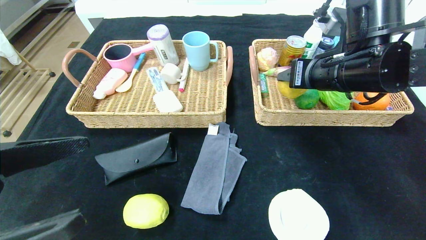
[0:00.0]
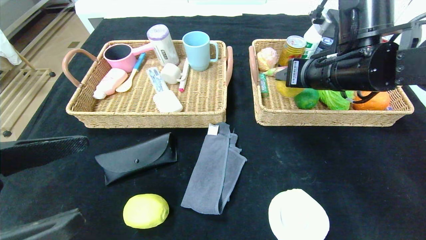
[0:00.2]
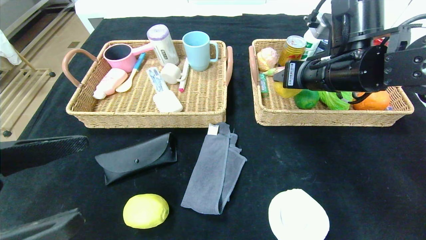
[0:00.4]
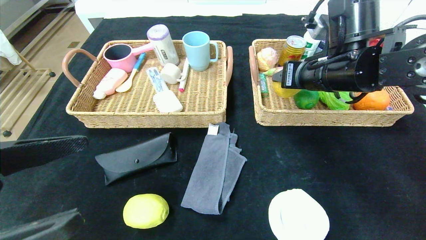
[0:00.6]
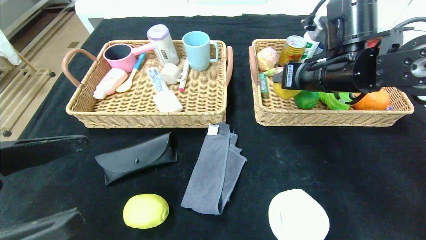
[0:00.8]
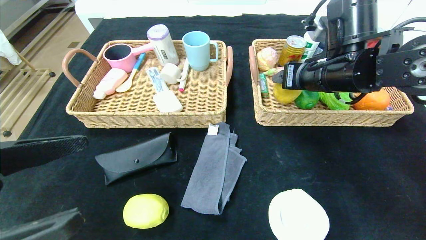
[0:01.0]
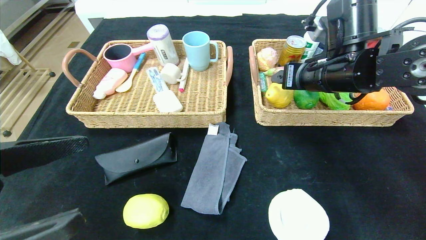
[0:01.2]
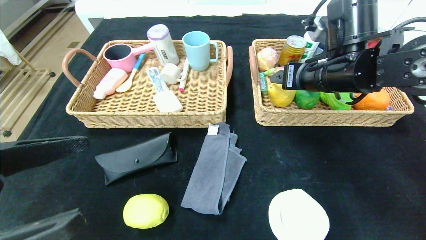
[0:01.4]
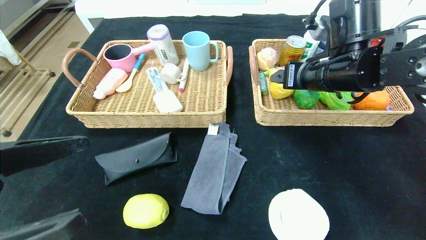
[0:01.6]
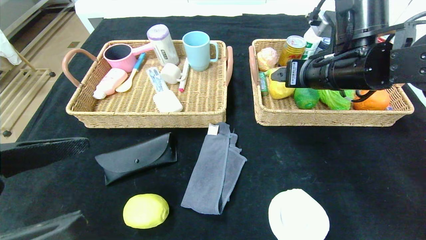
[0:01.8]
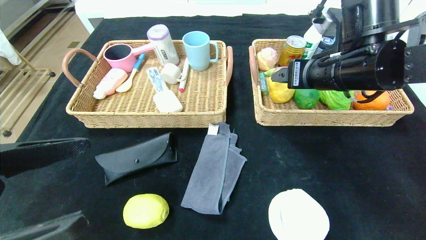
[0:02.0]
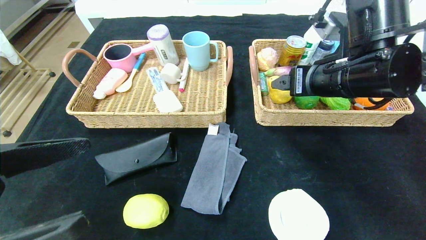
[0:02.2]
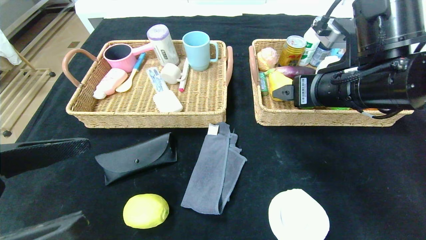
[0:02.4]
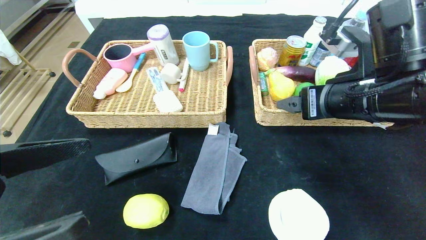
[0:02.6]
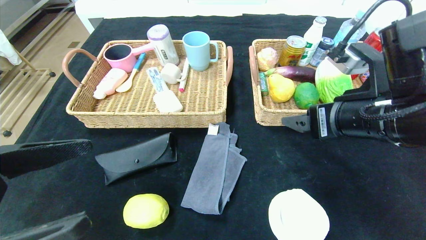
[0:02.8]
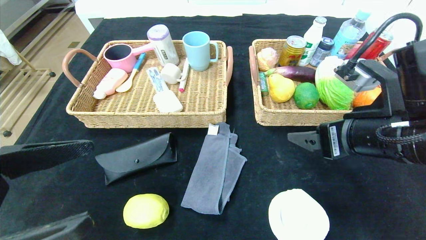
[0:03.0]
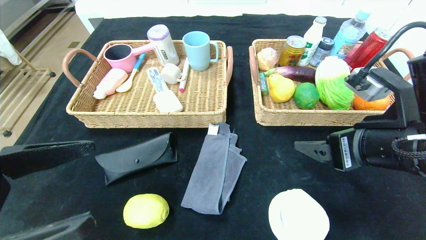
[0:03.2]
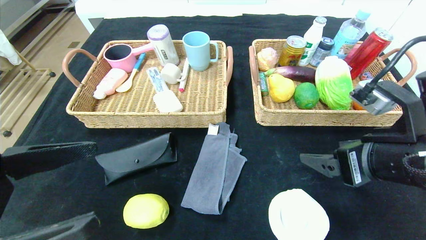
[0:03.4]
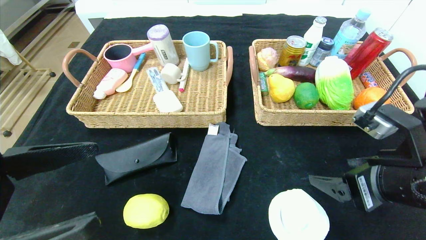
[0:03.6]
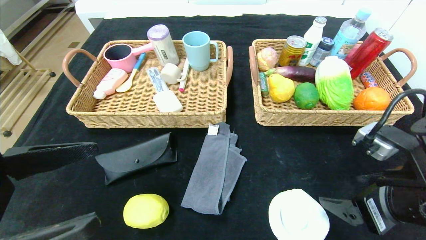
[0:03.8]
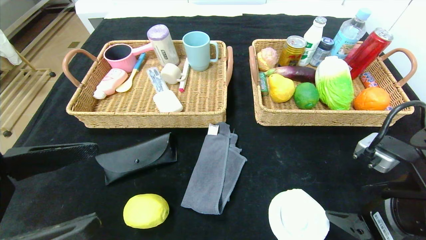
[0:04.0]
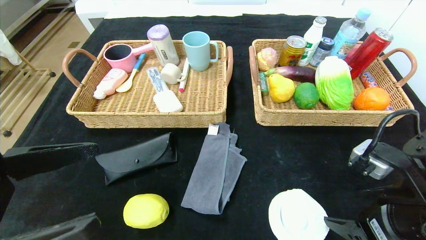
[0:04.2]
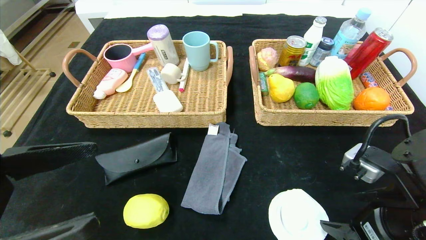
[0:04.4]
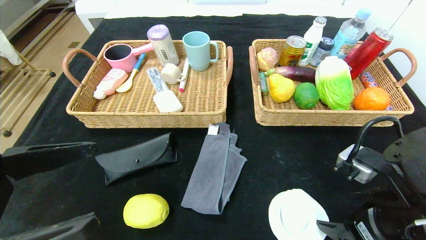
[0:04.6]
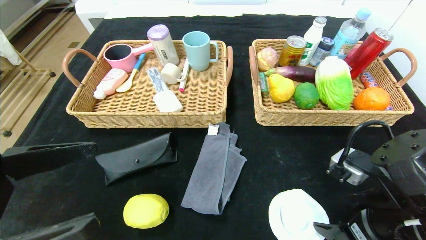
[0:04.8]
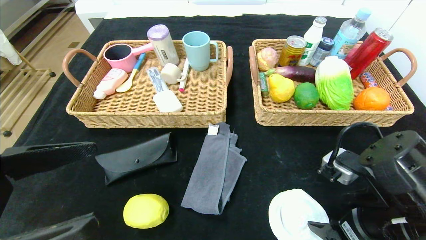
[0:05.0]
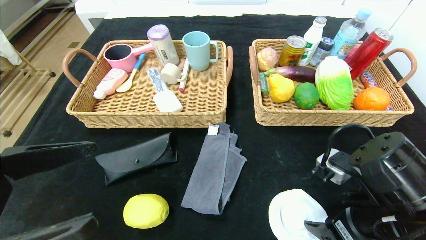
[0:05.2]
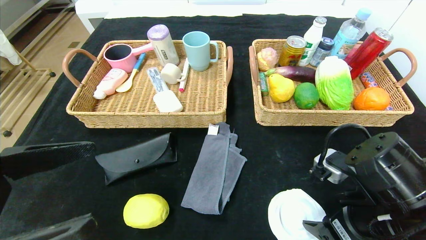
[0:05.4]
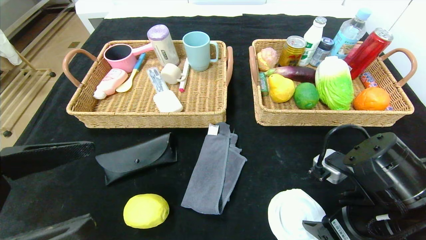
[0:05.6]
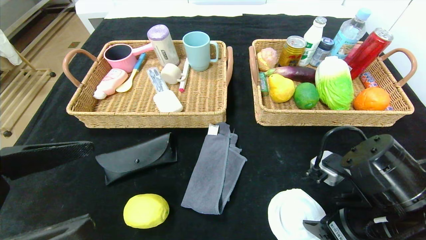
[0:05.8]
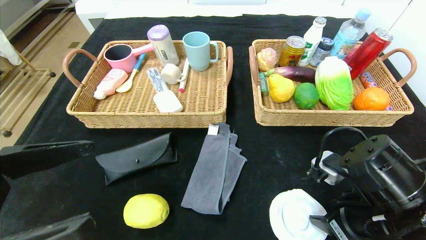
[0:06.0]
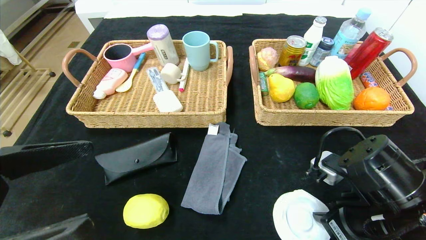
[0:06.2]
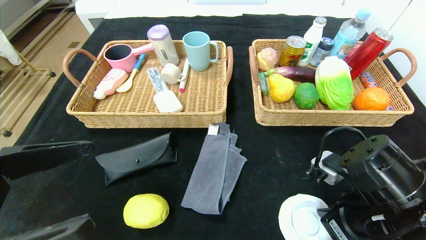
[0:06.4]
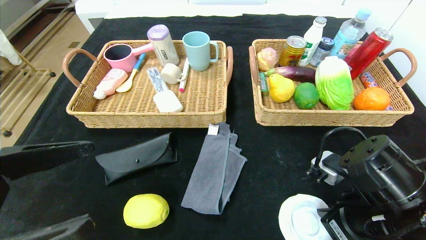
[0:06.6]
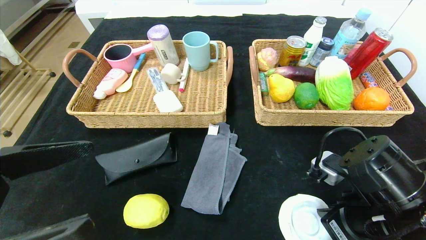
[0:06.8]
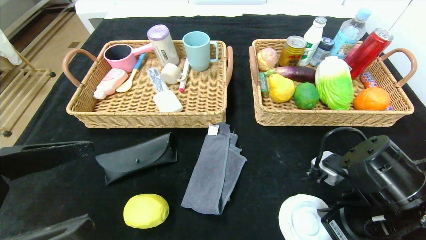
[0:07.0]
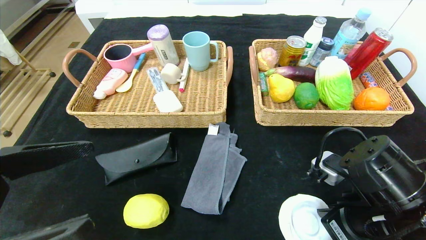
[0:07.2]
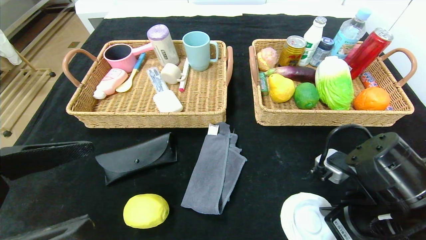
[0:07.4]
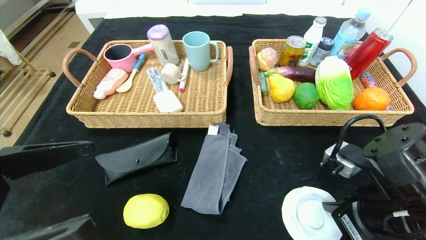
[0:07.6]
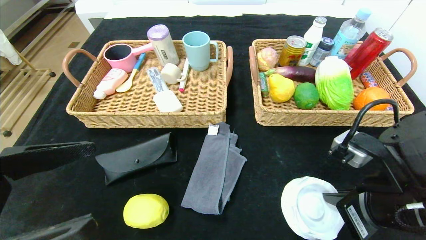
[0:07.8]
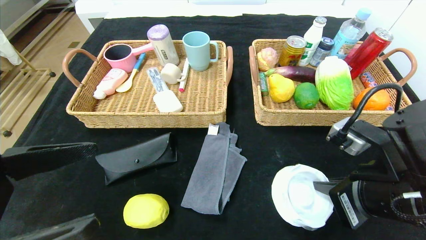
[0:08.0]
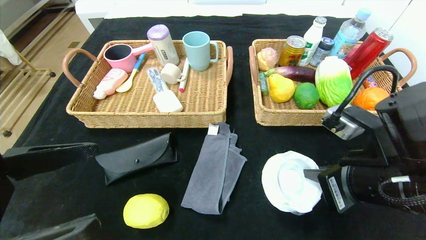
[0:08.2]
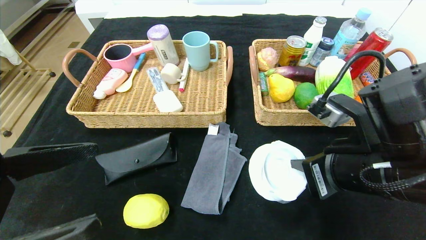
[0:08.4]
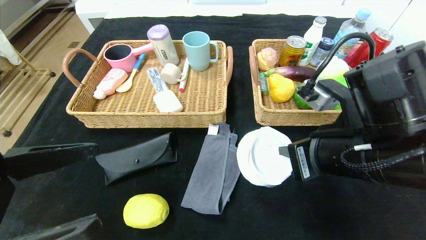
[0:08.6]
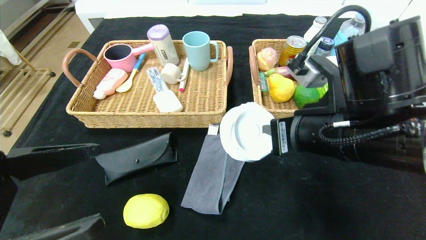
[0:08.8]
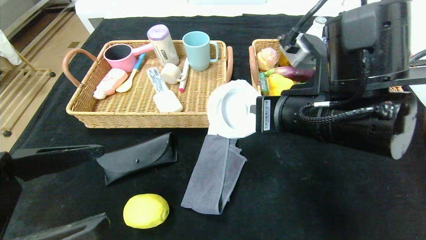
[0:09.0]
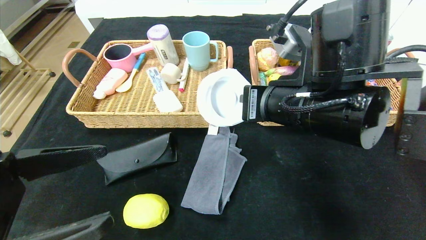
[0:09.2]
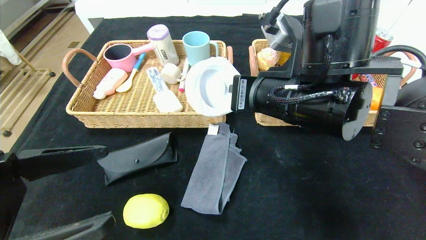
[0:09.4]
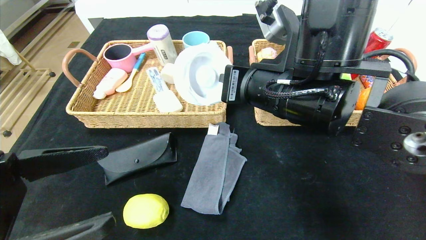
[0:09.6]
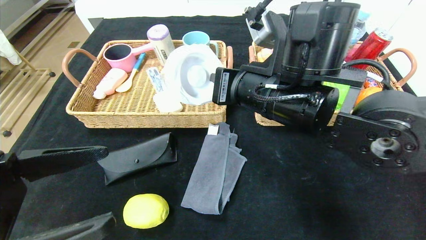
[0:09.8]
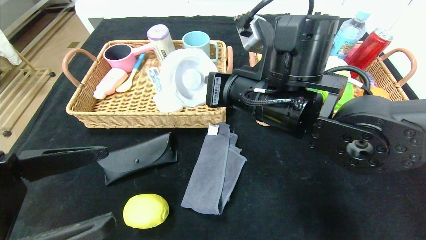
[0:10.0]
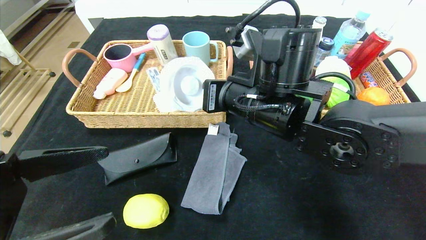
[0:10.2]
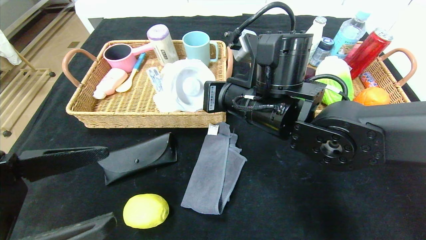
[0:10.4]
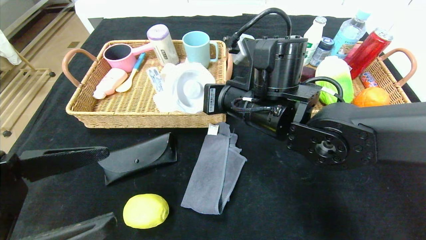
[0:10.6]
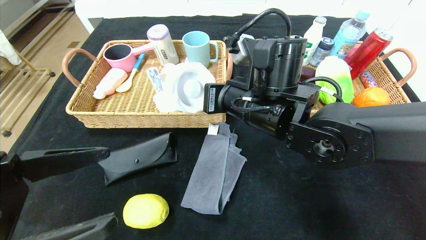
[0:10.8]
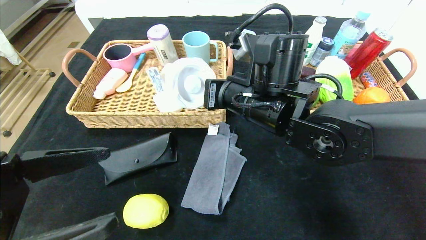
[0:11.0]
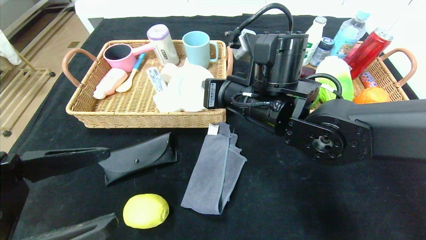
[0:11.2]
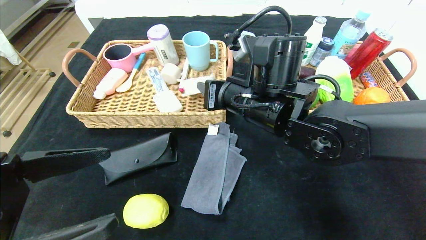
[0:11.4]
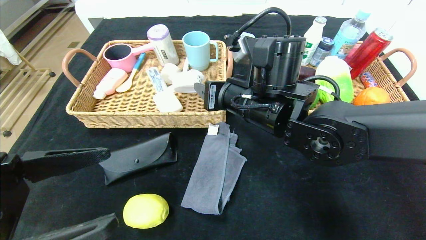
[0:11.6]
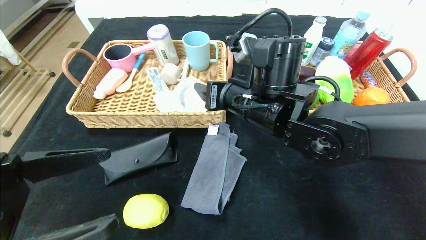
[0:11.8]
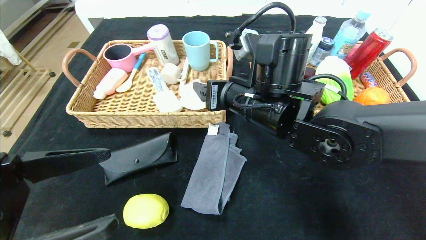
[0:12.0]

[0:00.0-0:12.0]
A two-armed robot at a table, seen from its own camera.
Step, 0:00.0 to 0:03.2: Pick up the pear and put it in the right basket.
0:00.0 to 0:01.6: The grippers stay close to where they were, moving slightly.
0:01.6 to 0:03.0: The right gripper shifts some 10 cm backward.
0:03.0 to 0:04.4: The right gripper is displaced downward and backward by approximately 10 cm.
0:04.4 to 0:06.0: The right gripper closes.
0:06.0 to 0:07.6: The right gripper closes its fingers.
0:07.6 to 0:09.0: The right gripper shifts roughly 15 cm to the left, upward and forward.
0:09.0 to 0:10.4: The right gripper goes about 10 cm to the left and forward.
0:10.4 to 0:12.0: The right gripper opens its fingers.

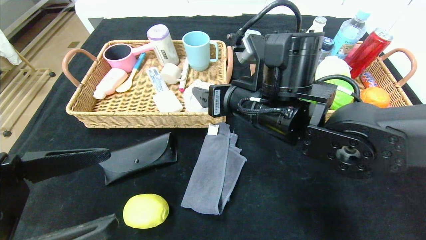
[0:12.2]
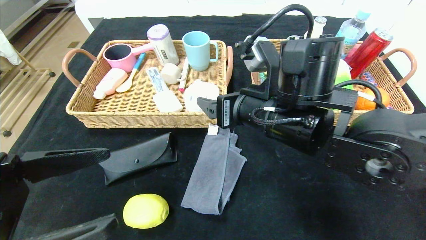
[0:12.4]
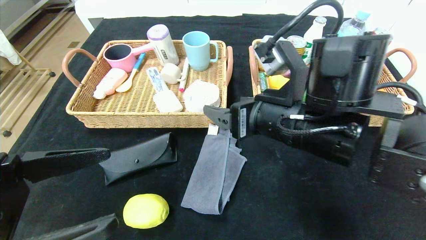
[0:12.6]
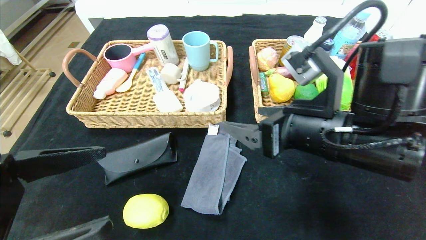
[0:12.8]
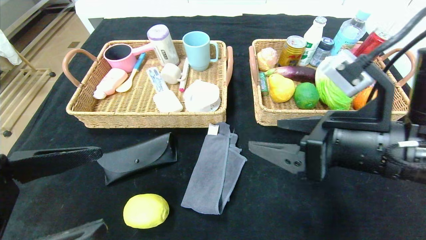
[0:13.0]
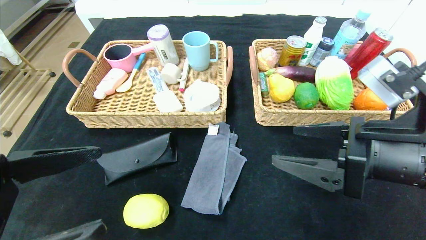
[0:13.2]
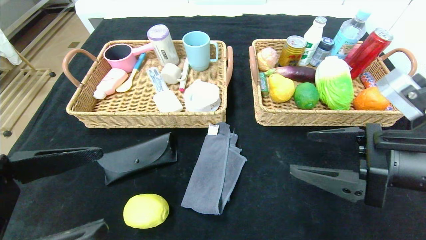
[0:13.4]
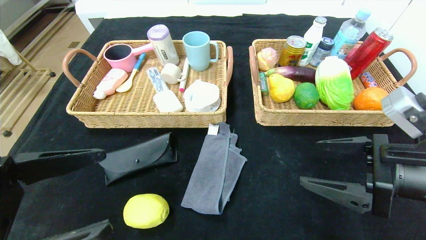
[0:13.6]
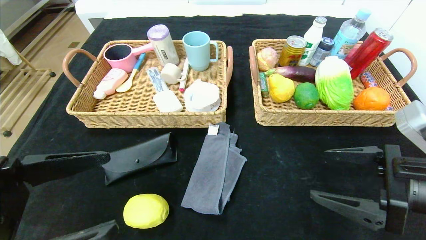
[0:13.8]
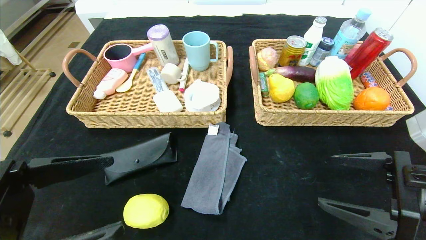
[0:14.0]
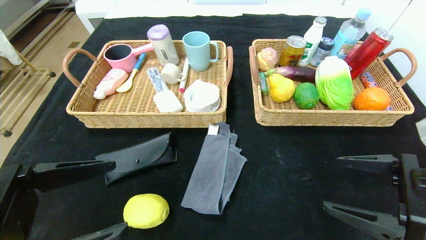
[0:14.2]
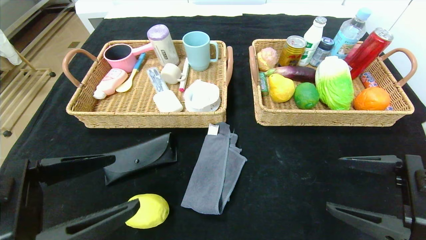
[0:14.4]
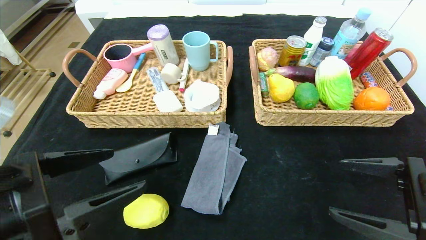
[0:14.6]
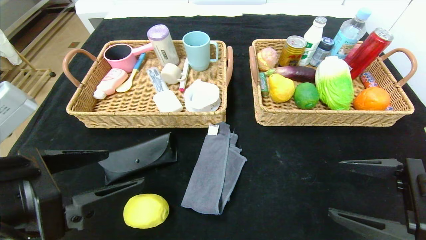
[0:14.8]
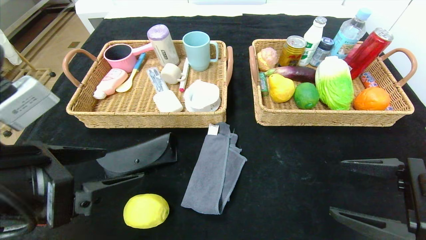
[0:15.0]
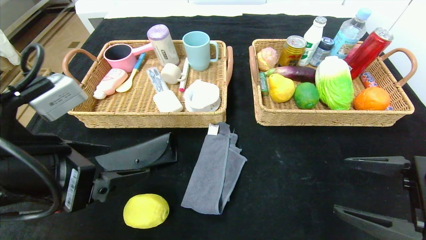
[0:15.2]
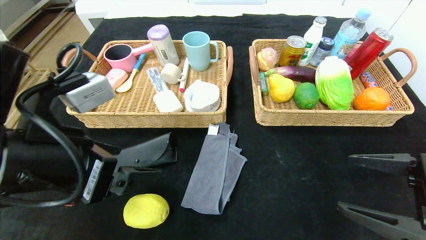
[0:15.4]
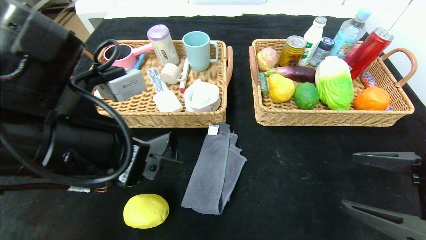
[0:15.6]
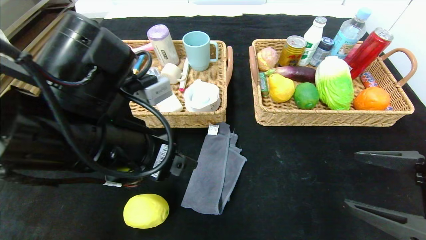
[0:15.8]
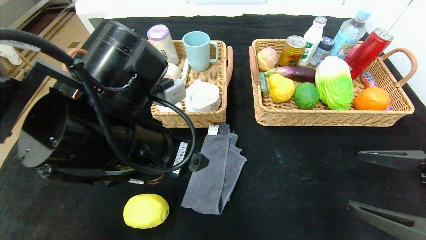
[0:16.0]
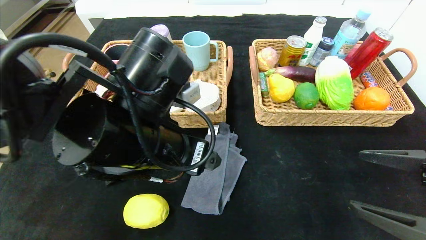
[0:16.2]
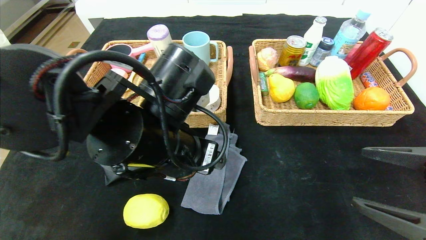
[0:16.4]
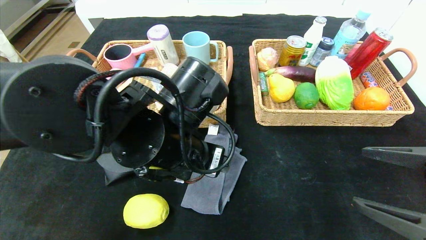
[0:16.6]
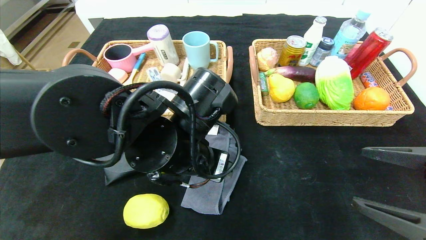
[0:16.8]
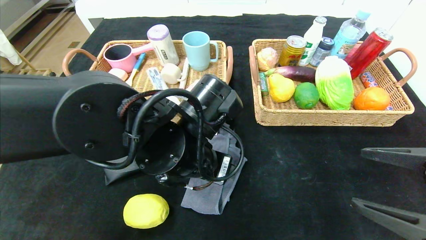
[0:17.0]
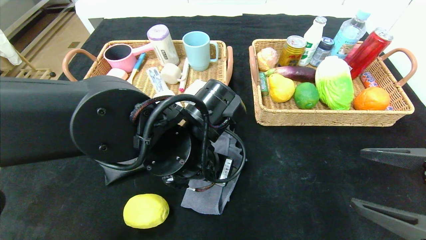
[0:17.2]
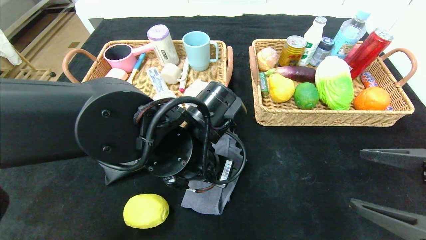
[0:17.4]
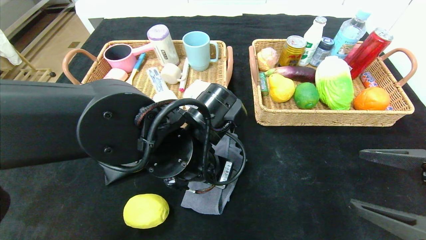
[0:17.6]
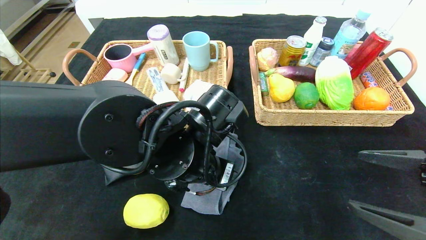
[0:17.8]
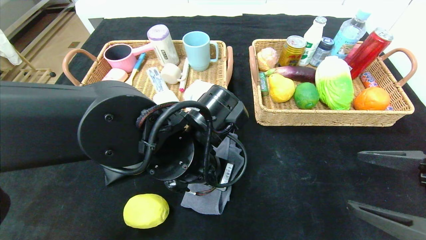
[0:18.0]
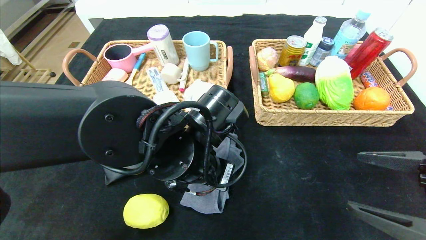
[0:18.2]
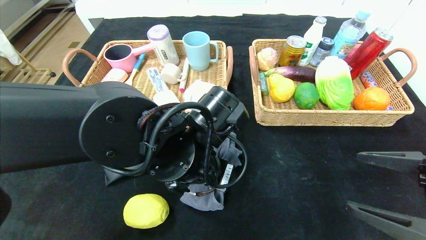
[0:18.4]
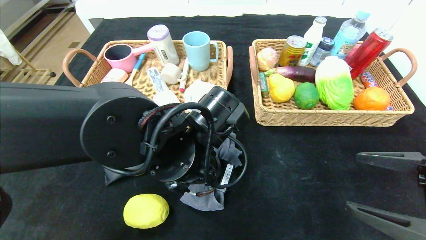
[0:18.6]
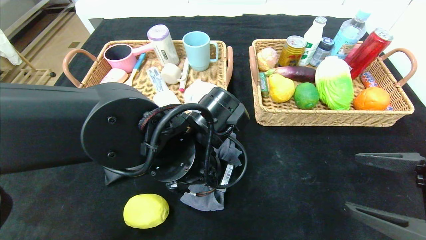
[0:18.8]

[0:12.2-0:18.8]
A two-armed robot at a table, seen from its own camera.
0:12.2 to 0:13.8: The right gripper heads to the right and backward, covering about 25 cm.
0:13.8 to 0:15.4: The left gripper moves forward, some 10 cm.
0:15.4 to 0:17.2: The left gripper travels to the right, forward and downward by roughly 15 cm.
0:17.2 to 0:18.8: The left gripper closes its fingers.
